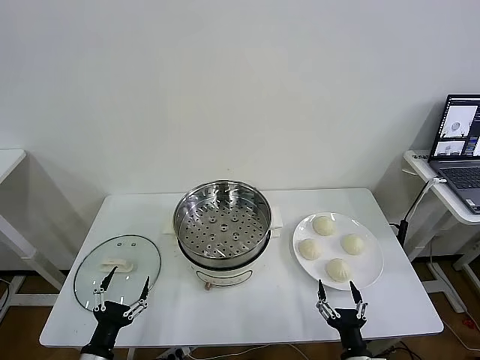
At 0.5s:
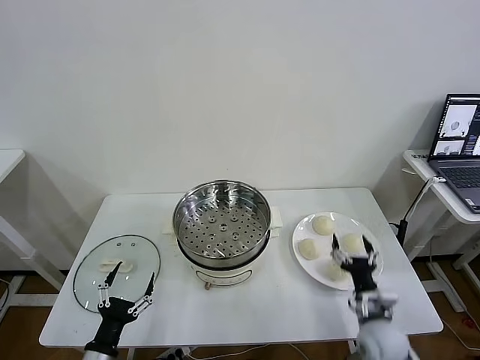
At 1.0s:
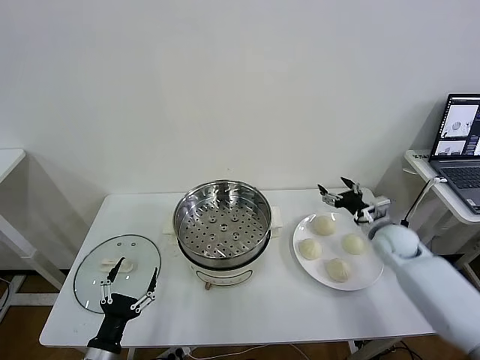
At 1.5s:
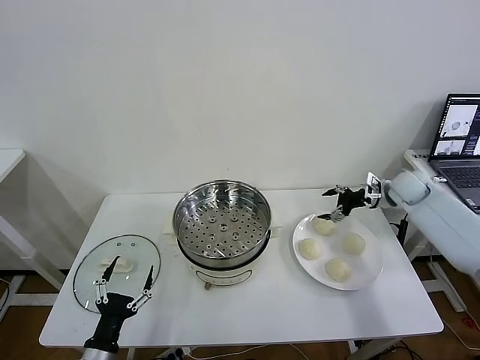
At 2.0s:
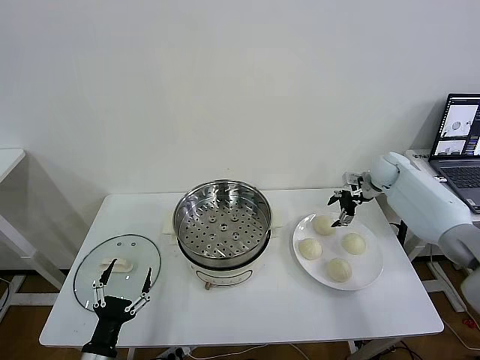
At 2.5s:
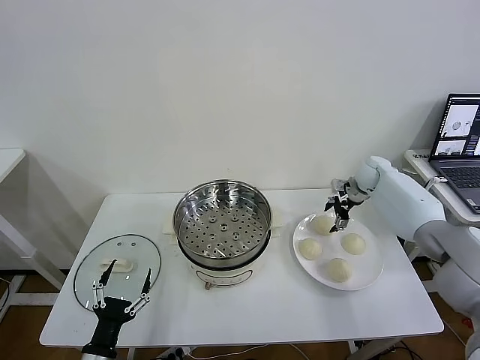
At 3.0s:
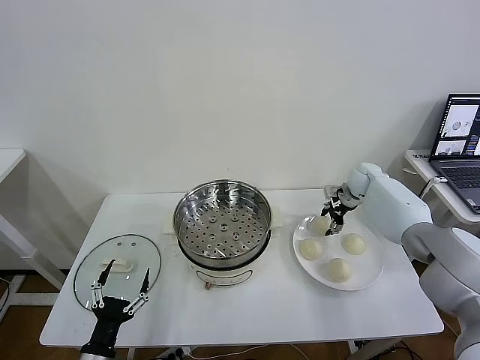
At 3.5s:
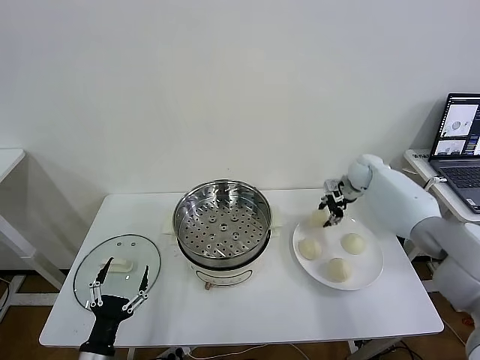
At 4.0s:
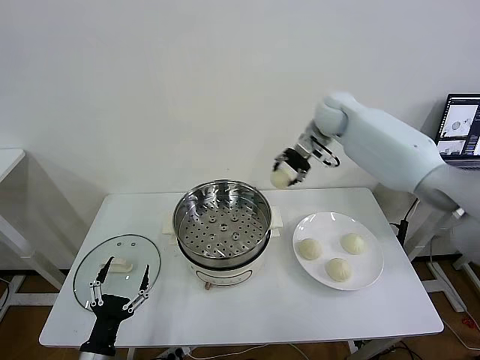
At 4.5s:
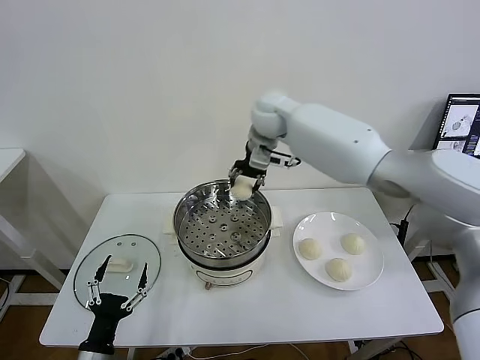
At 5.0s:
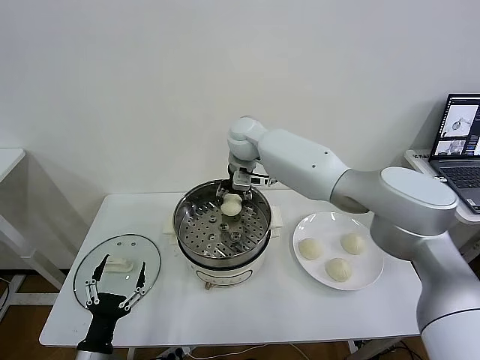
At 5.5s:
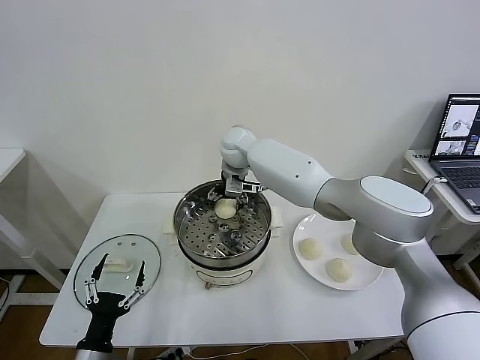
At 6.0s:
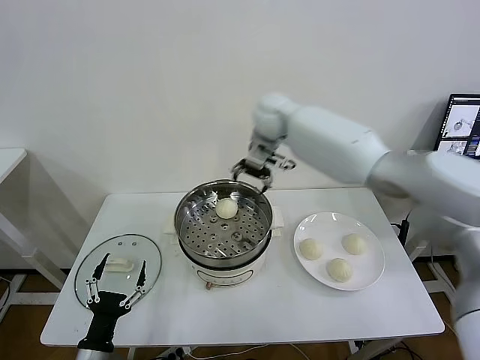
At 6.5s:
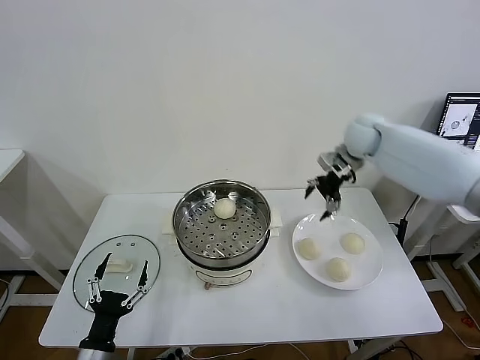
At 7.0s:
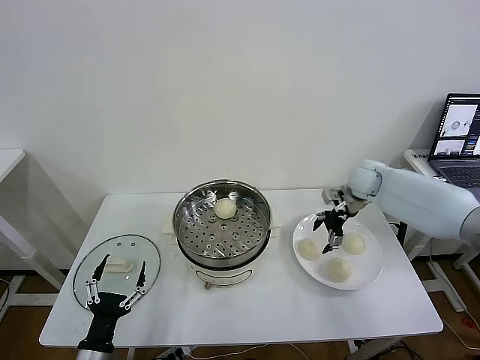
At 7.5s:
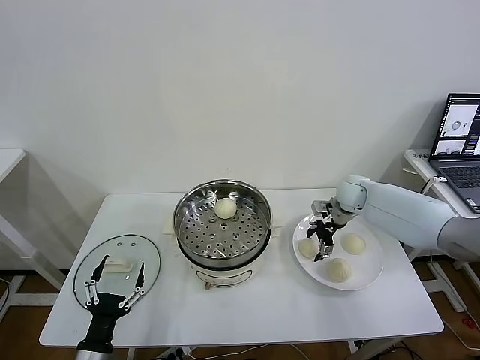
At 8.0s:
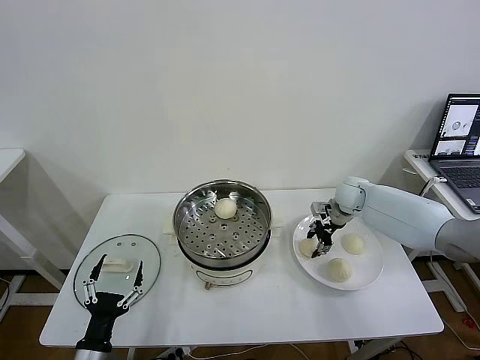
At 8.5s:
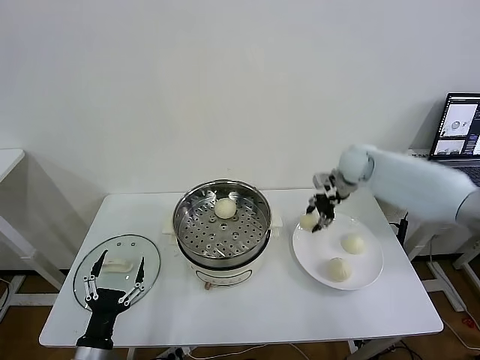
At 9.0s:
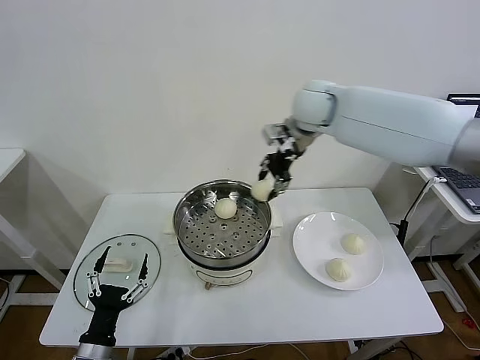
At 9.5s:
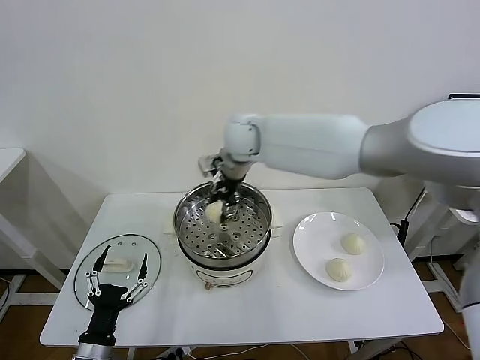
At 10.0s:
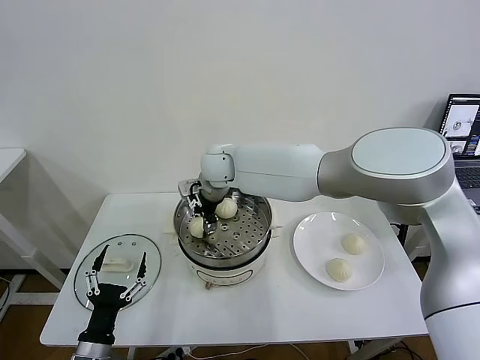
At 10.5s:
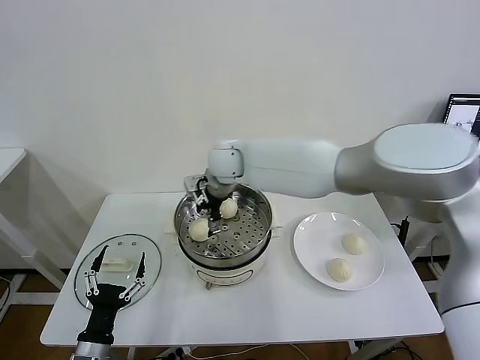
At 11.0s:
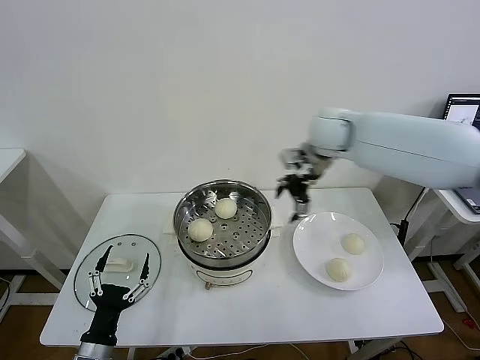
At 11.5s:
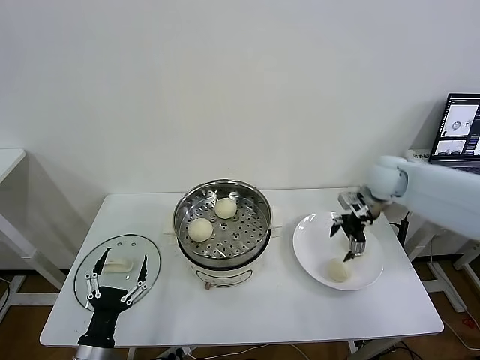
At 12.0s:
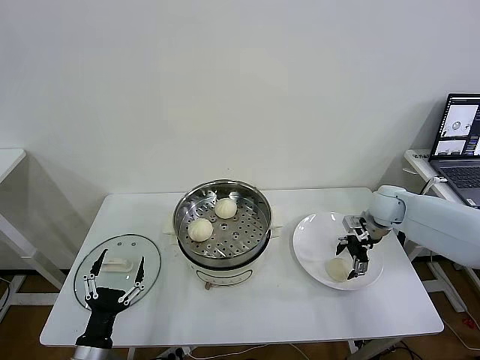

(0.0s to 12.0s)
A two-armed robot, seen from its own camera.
Task of the whole recording: take steamed baozi put them in steamer then cover it.
Step, 0.0s - 3.0s: Grasp the baozi in the plate with right gripper.
Step, 3.5s - 5.5s: Place the baozi on the steamer with right gripper.
Step, 6.0s - 7.5s: Grasp the baozi in the plate with right gripper.
Step, 8.0s - 10.0s: Place the baozi on the steamer with right gripper.
2.0s - 4.0s: The right gripper shifts approximately 30 cm to the left and upward, and closes up.
4.0s - 6.0s: The right gripper reaches approximately 20 cm to the left, then returns, and opens up.
6.0s - 8.0s: The right gripper heads downward and to the right, covering roughly 30 cm, and closes up.
8.0s - 10.0s: The right gripper moves to the left, approximately 35 cm, and opens its fingers.
10.0s - 12.0s: The right gripper is displaced to the right by approximately 40 cm, and opens up.

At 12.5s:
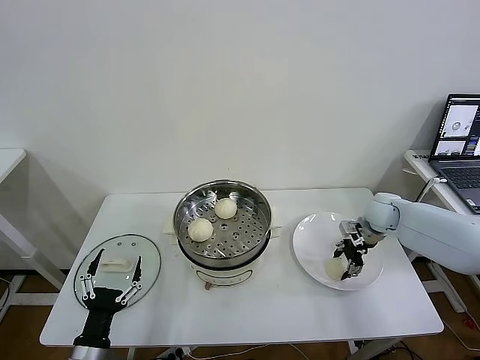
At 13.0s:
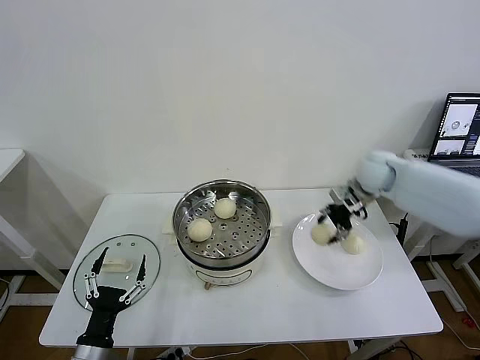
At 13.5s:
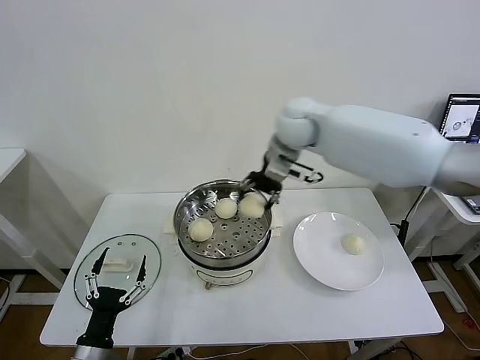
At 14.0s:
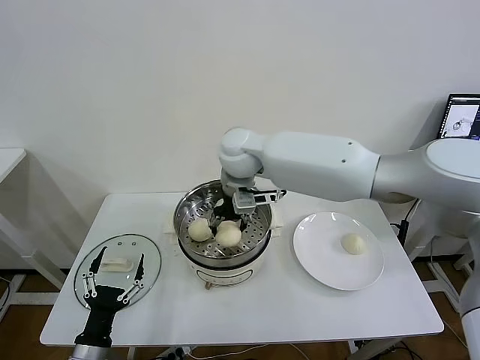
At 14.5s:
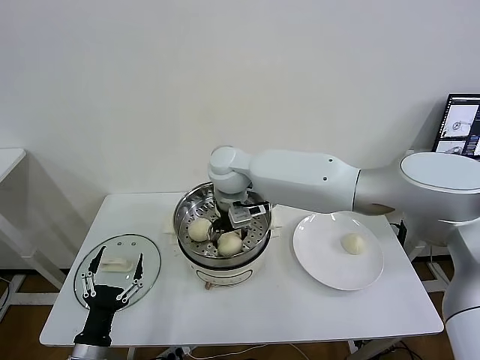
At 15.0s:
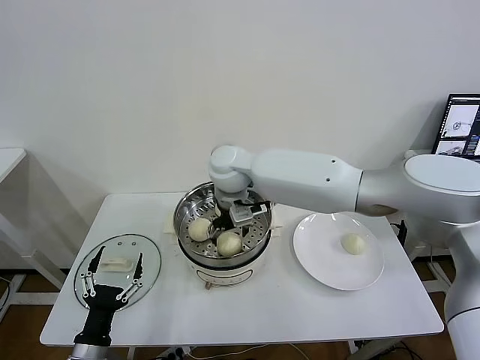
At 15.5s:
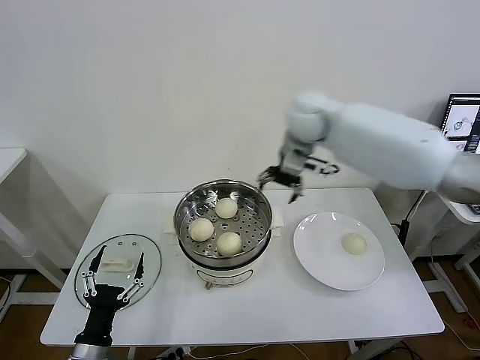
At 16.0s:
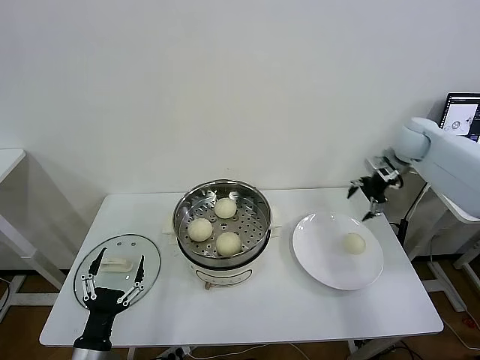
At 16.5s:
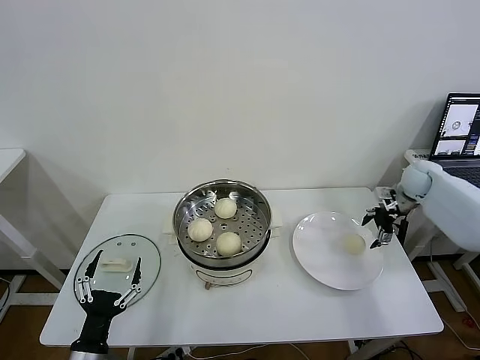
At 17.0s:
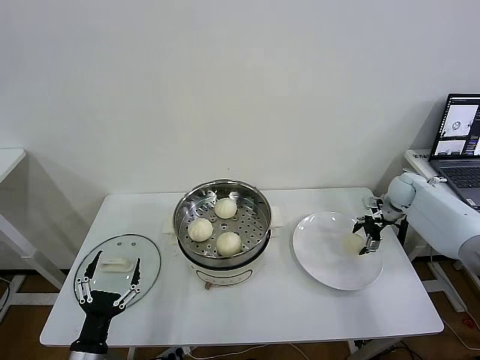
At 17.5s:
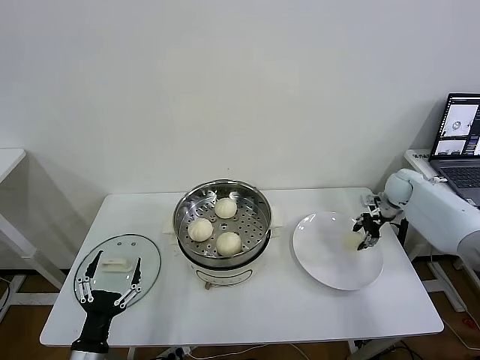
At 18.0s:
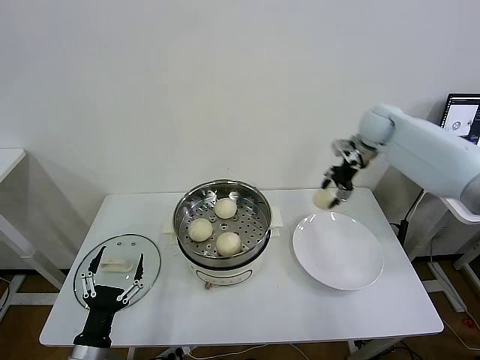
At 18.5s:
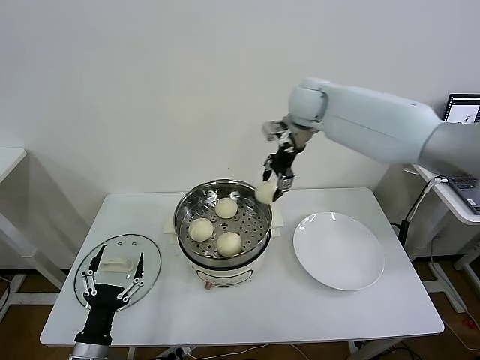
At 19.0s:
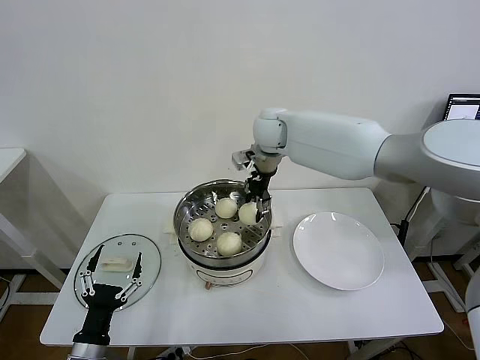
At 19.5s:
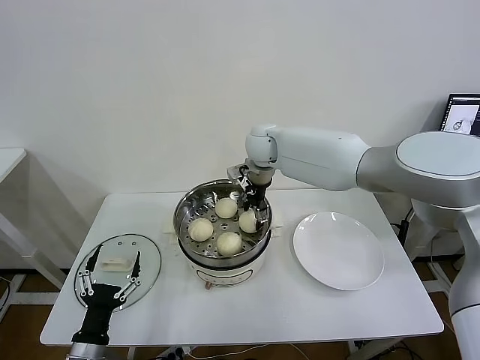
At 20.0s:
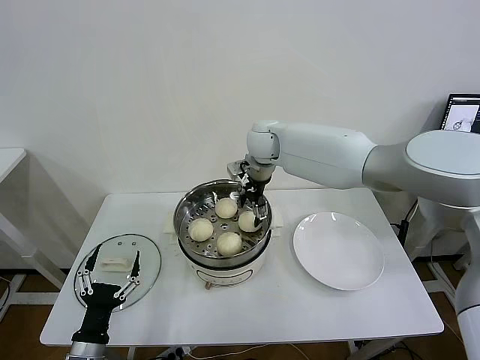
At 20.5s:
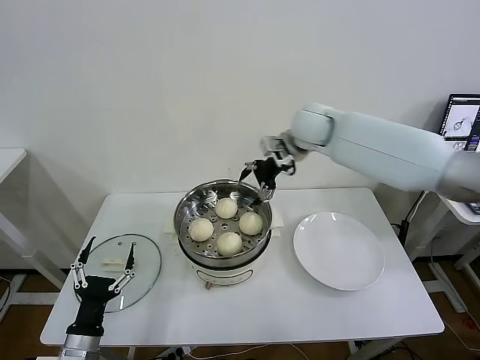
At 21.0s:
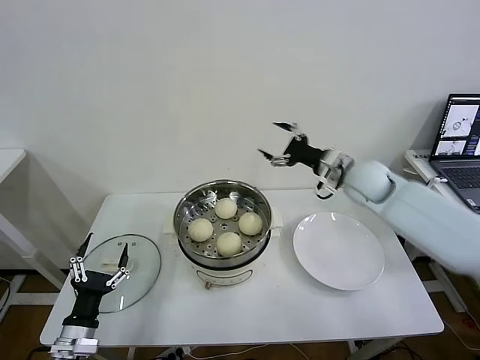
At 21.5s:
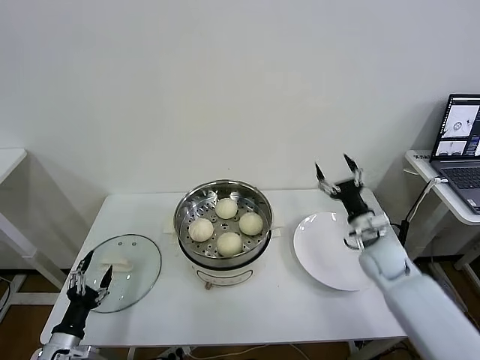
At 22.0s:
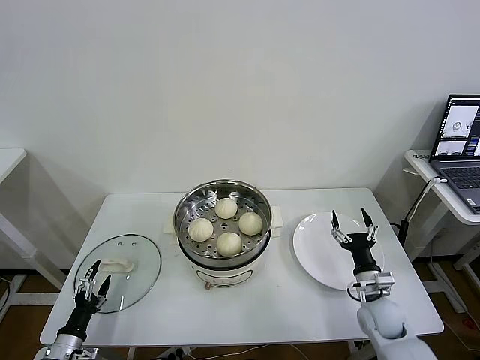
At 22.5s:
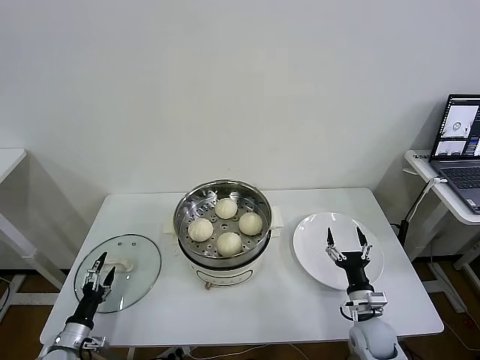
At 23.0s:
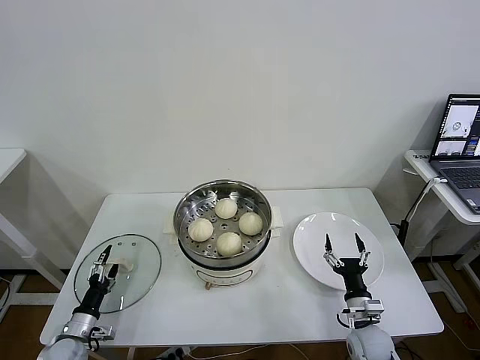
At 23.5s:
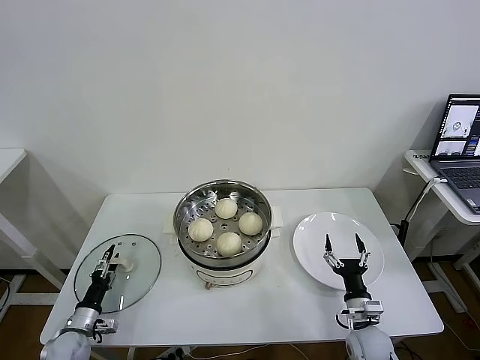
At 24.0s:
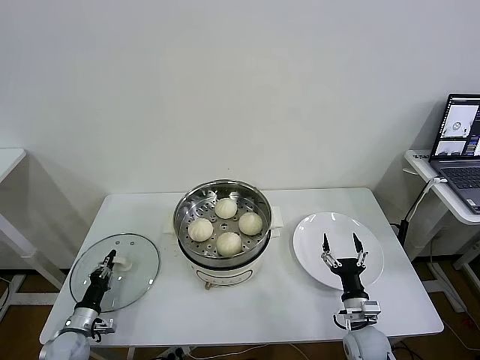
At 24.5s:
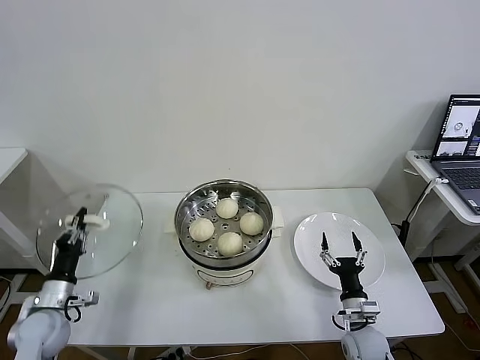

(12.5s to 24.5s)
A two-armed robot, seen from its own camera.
Task of the whole recording: take steamed baozi put them in steamer then cover it.
Step, 13.0s - 15.0s: Place the baozi on the steamer with right gripper.
Step, 15.5s - 17.0s: Grasp the baozi in the plate with right gripper.
Step, 17.5s - 20.0s: Place the baozi on the steamer with right gripper.
Step, 20.5s - 24.0s: Grasp the pot lid with left gripper.
12.5s - 14.5s: The right gripper is displaced to the left by roughly 40 cm, and opens its fingers.
14.5s - 16.5s: The right gripper moves to the right, approximately 50 cm.
16.5s - 18.5s: The right gripper travels to the left and upward by some 40 cm, and closes.
18.5s - 20.5s: The right gripper moves approximately 10 cm to the left and comes back, and opens up.
20.5s - 22.5s: The right gripper shifts about 50 cm downward, backward and to the right, while the left gripper goes some 20 cm downward, to the left and forward.
22.5s - 24.5s: The left gripper shifts some 10 cm upward, and closes up.

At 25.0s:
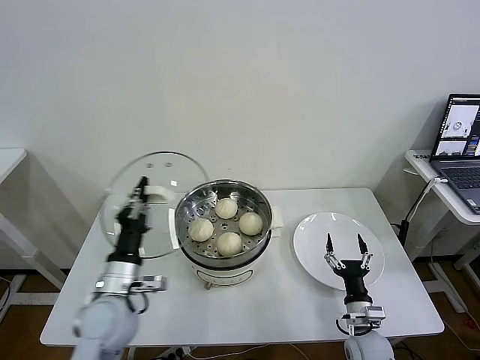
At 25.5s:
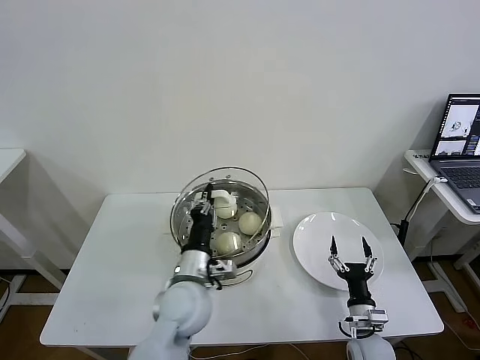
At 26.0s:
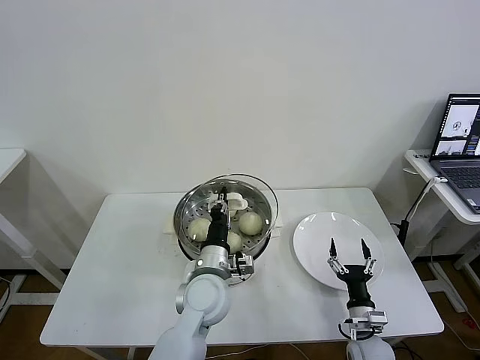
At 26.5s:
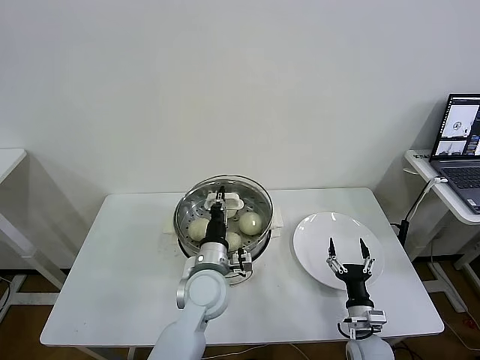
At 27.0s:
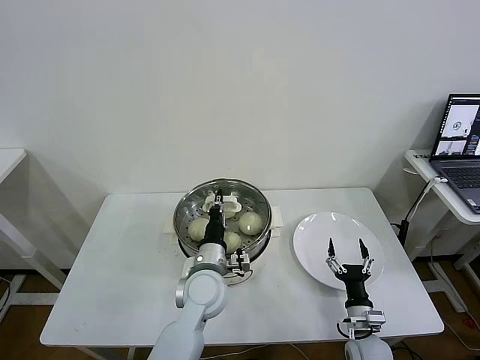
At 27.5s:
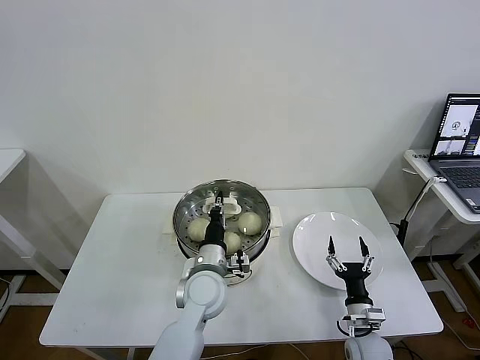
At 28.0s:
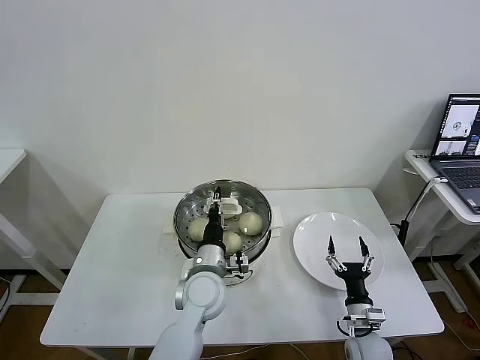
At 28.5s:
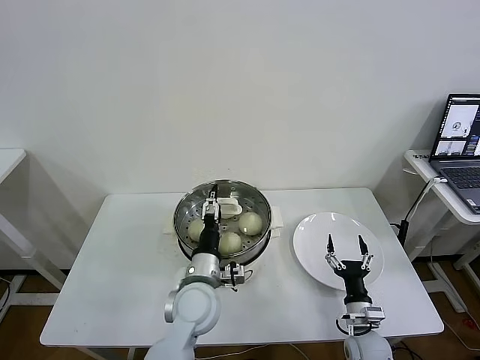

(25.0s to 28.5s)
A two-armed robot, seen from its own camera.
Task of the whole recording: take steamed baozi put them in steamer then cover it.
25.0s - 27.0s: The left gripper shifts about 20 cm to the right.
27.0s - 28.5s: The left gripper opens.
